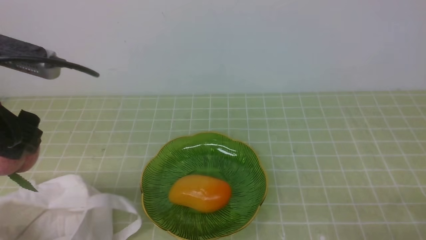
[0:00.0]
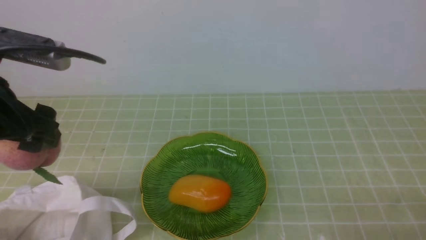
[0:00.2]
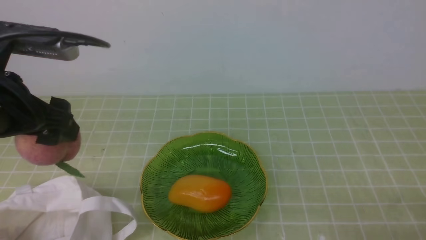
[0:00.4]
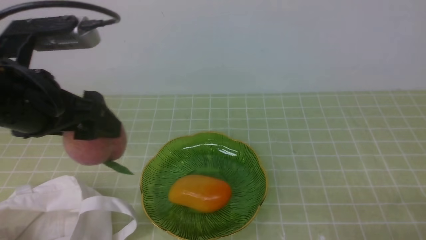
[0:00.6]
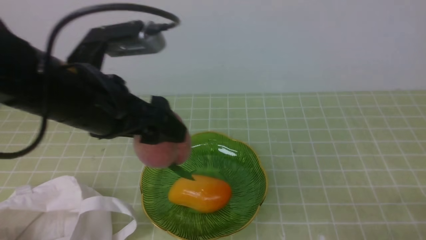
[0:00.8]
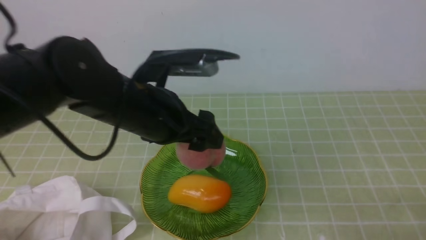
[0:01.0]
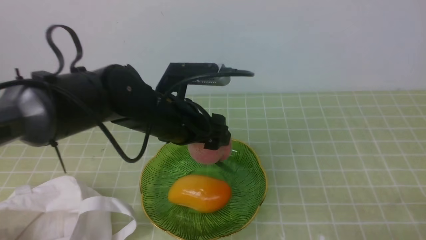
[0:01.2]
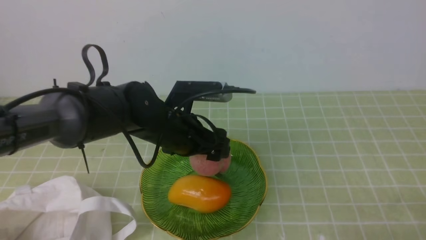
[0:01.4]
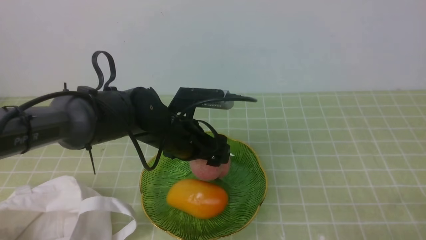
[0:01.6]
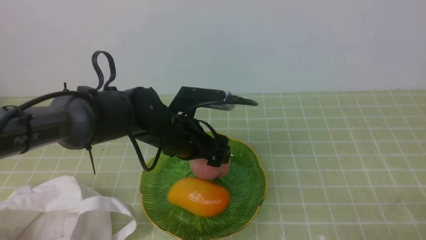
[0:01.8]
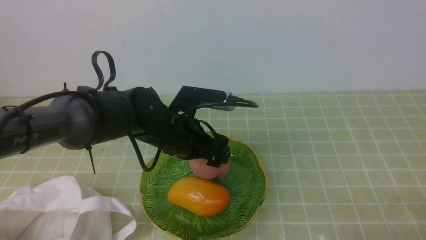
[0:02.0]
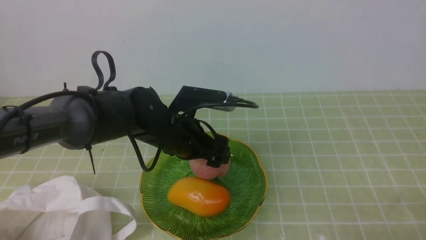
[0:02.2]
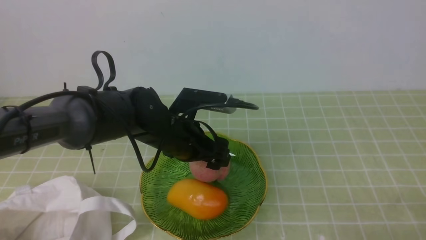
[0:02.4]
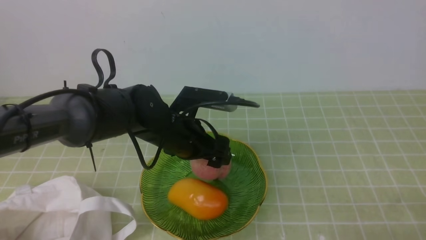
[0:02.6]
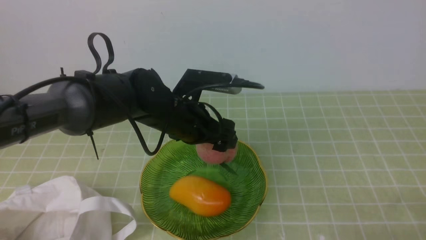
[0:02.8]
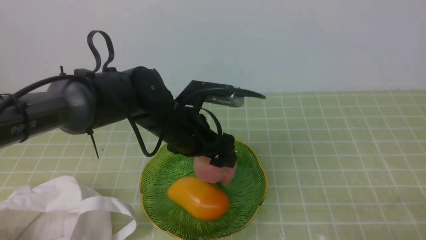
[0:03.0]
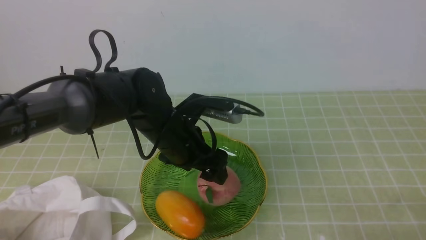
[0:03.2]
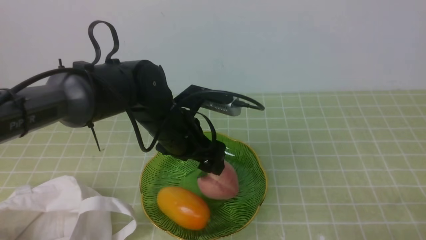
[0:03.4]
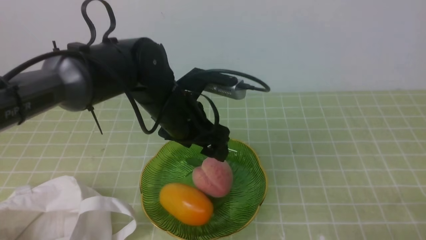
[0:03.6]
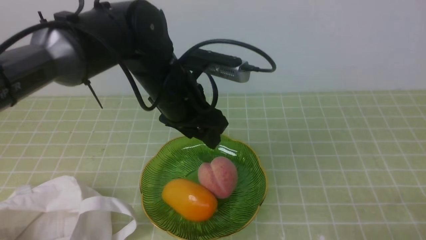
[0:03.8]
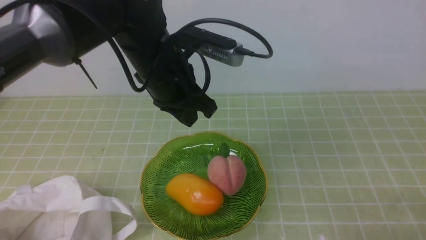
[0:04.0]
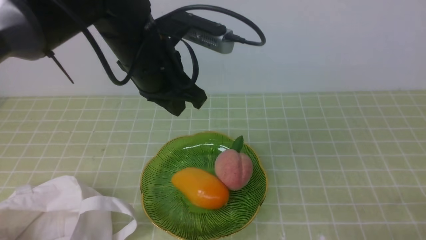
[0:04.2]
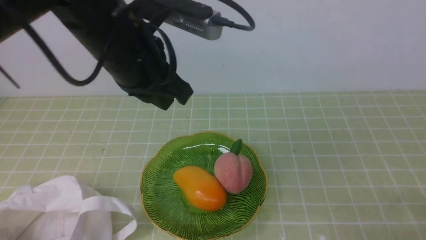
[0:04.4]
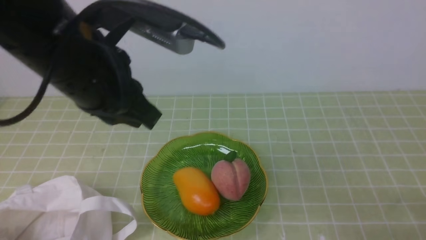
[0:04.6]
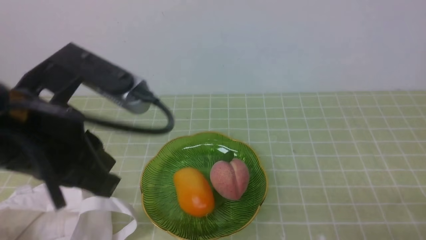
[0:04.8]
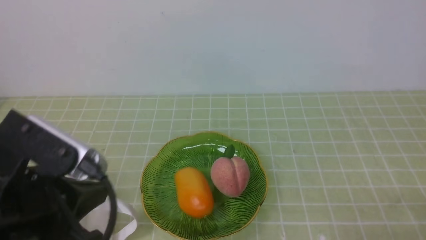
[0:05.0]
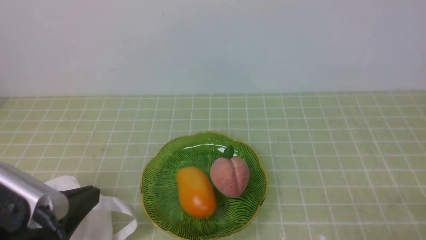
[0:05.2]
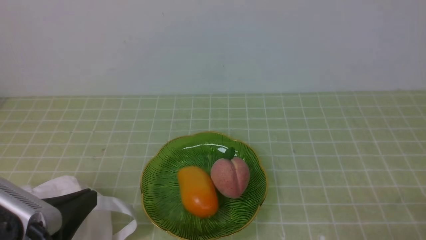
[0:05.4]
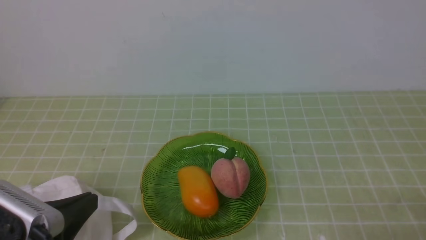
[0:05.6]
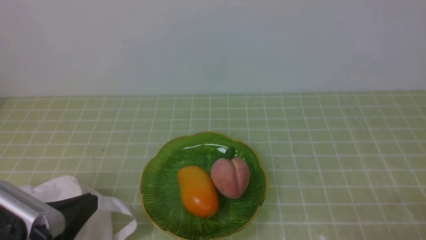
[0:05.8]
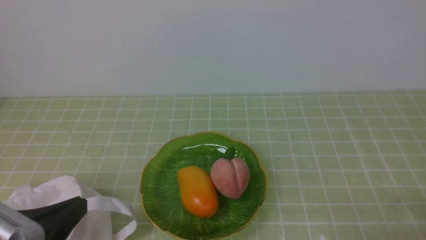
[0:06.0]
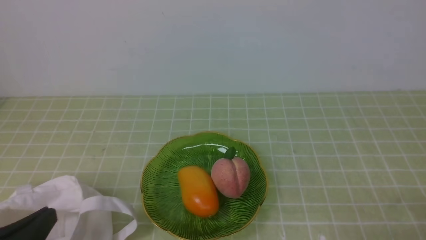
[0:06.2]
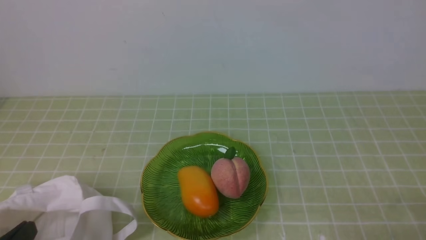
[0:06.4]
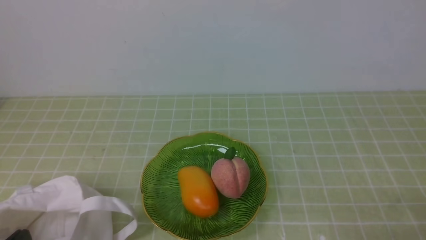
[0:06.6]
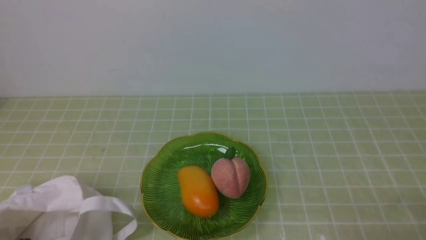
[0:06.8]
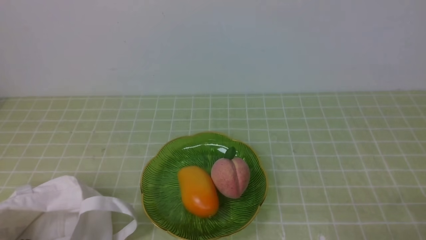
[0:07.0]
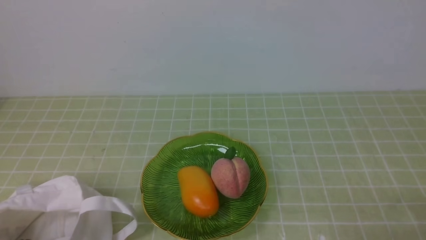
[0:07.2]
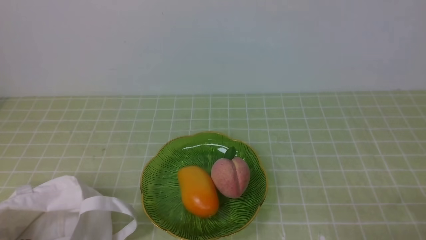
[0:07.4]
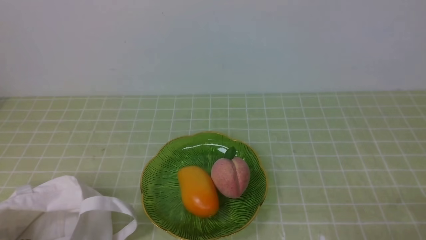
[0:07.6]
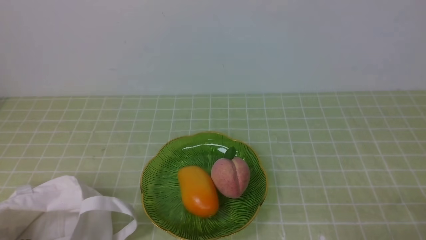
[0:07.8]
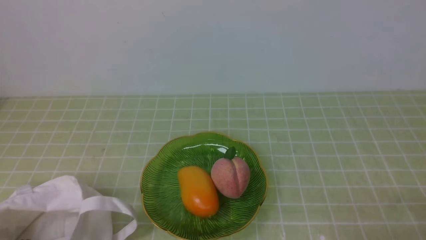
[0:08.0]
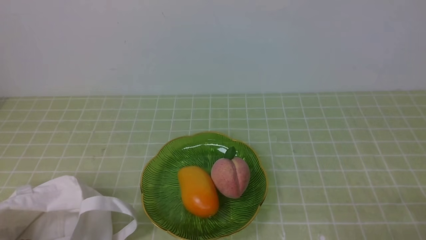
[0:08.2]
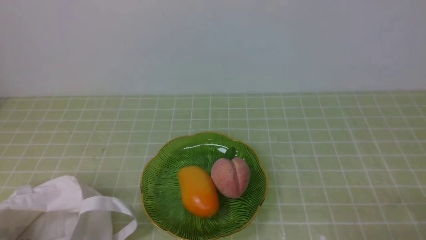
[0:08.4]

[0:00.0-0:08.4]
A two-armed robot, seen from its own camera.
Step, 0:00.0 to 0:03.2: use the left arm to put the peach into the empty plate on the right.
0:00.0 to 0:01.4: The left gripper moves to the right, downward and forward, roughly 25 cm.
0:01.4 to 0:02.8: The grippers make only small movements.
0:02.8 to 0:04.2: The left gripper shifts roughly 15 cm upward, and closes its fingers.
0:04.2 to 0:05.6: The left gripper is displaced backward, to the left and downward by approximately 25 cm.
0:05.6 to 0:07.0: The left gripper is displaced downward by approximately 10 cm.
0:07.0 to 0:08.4: Both grippers stay about where they are.
